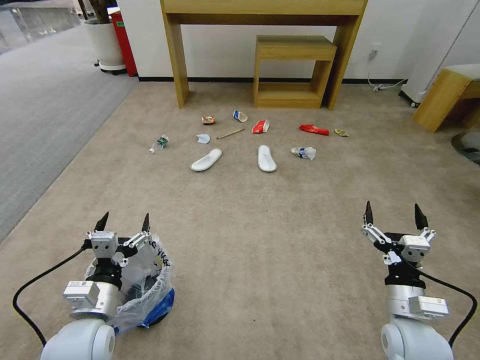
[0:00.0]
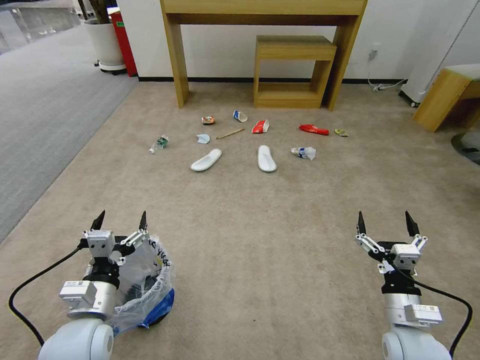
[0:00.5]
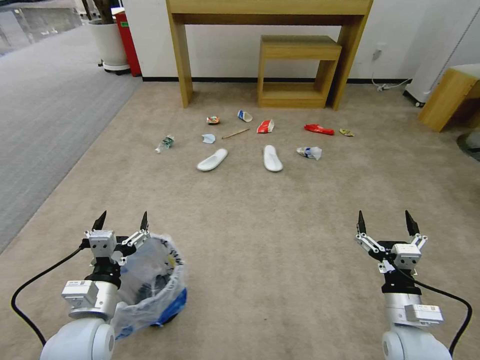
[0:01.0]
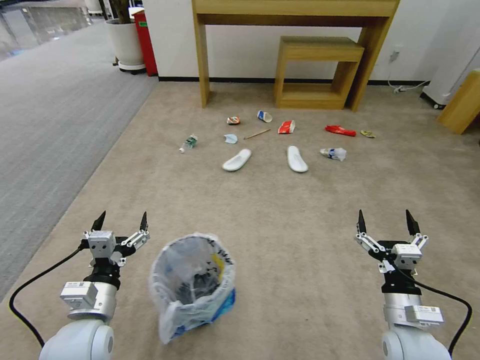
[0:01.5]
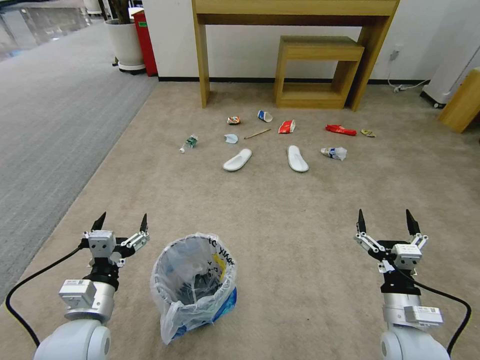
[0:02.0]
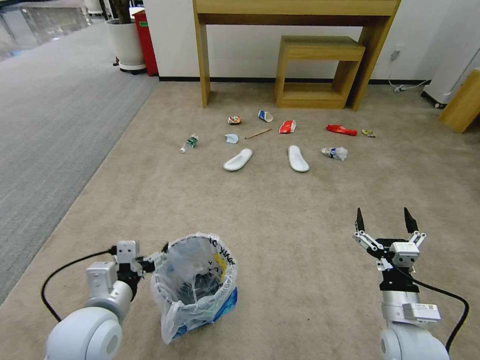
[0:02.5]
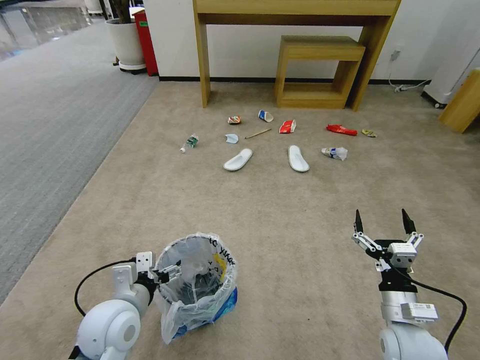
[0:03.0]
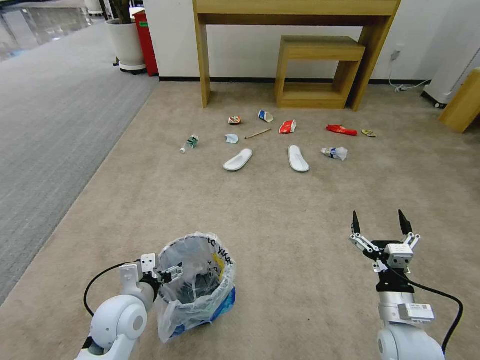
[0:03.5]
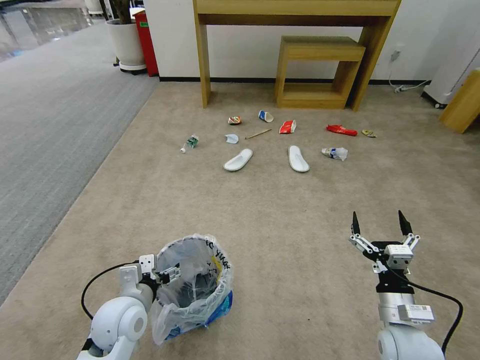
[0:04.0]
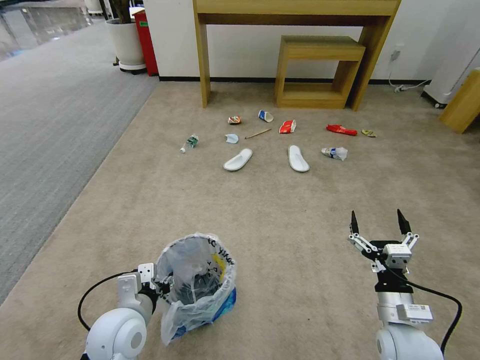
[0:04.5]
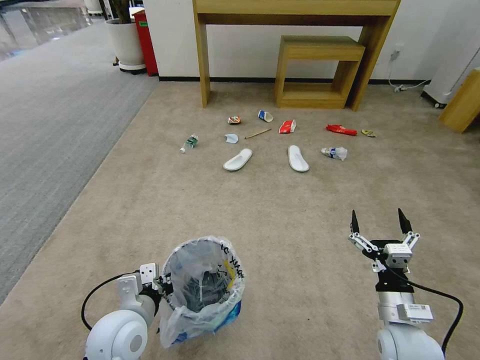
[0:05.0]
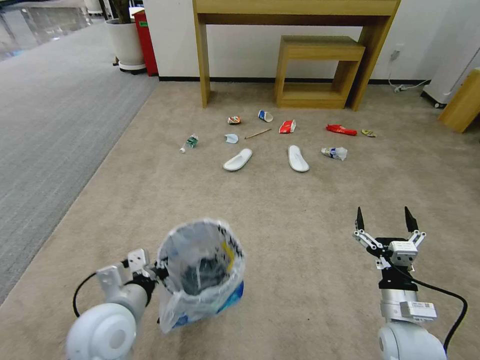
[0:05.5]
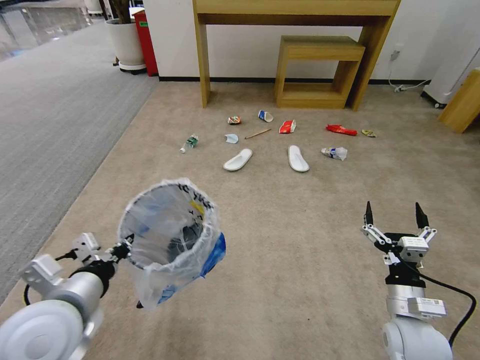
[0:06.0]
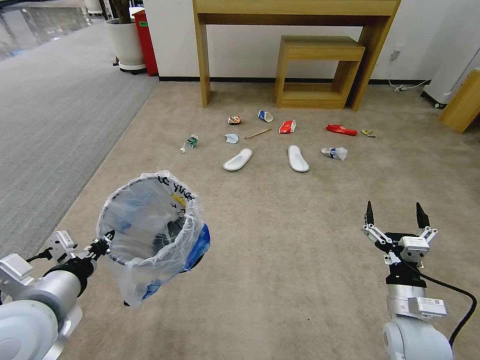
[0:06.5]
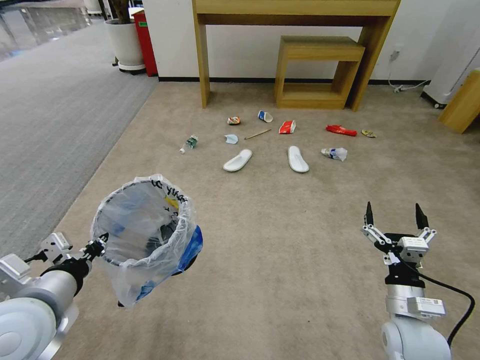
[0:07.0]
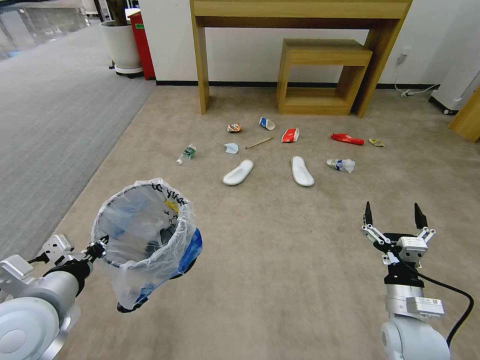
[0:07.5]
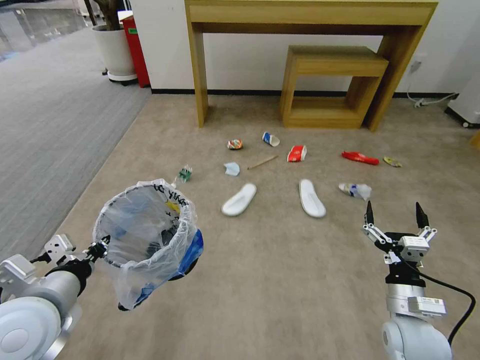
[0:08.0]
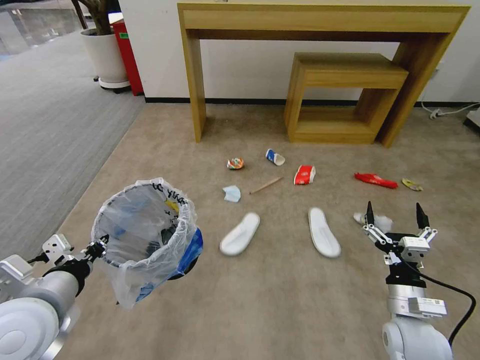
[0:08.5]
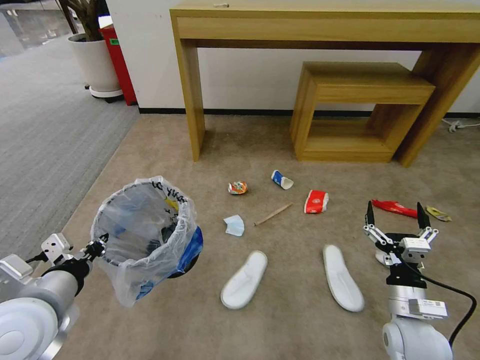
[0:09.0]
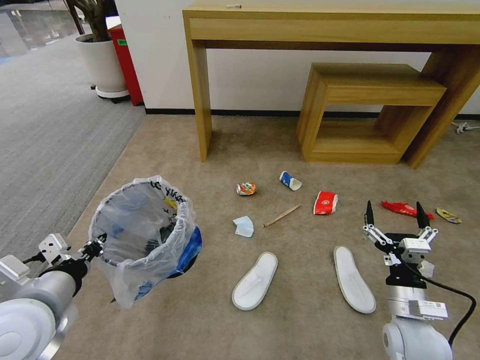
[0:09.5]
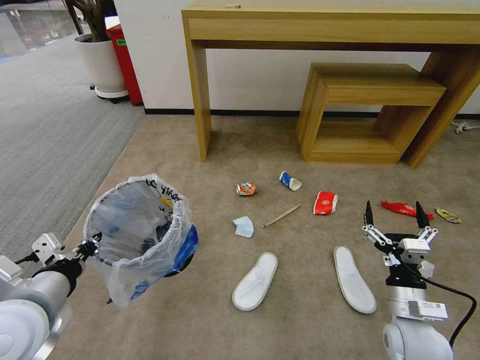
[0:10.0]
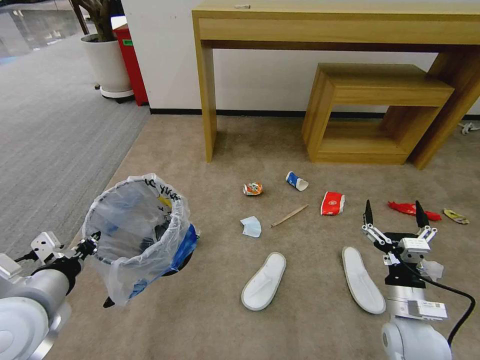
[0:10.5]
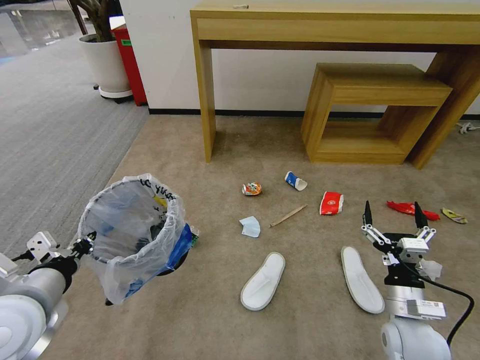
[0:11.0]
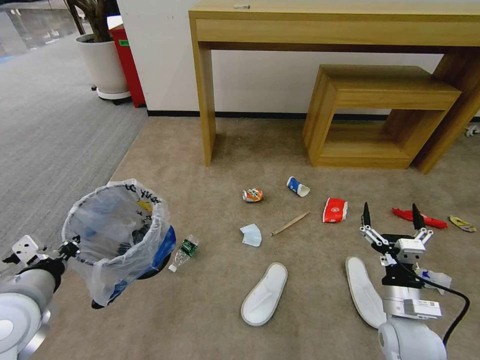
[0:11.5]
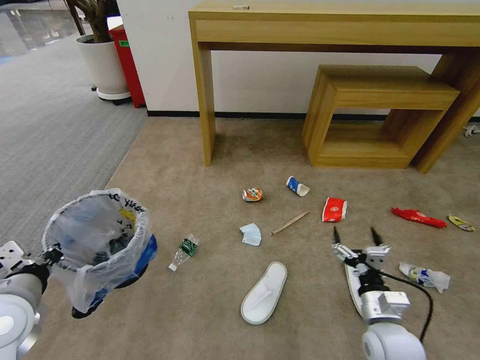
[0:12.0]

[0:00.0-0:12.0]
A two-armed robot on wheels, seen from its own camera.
Task of the whole recording: Pick up the trash bin and place the garbage on the floor into it.
2.0 to 4.0 s: The left gripper moves forward, roughly 5 cm.
4.0 to 6.0 s: The left gripper shifts some 15 cm upward, and closes its fingers.
10.0 to 12.0 s: The left gripper ends up roughly 5 cm from where it was.

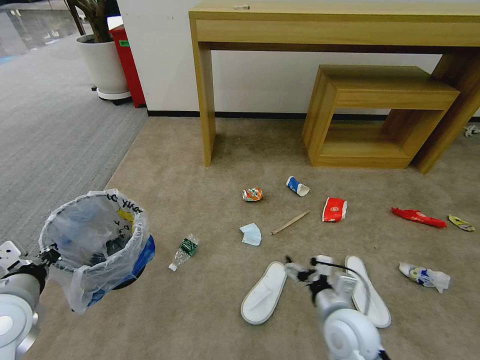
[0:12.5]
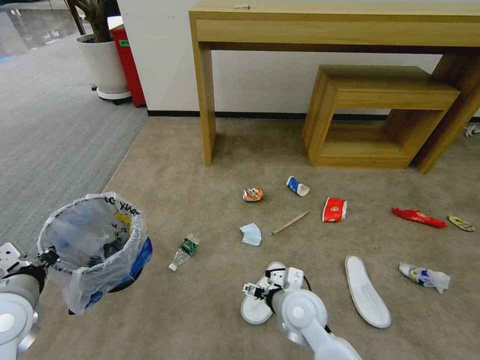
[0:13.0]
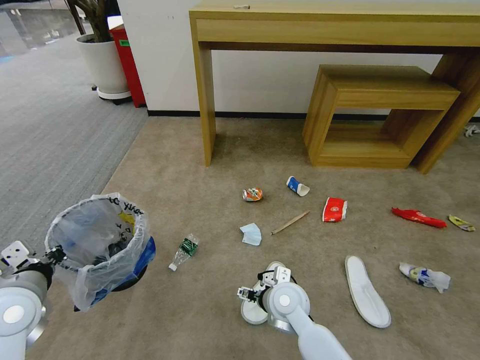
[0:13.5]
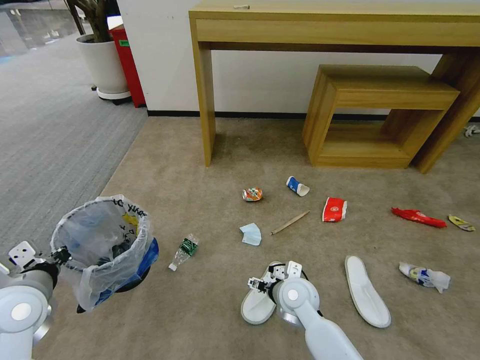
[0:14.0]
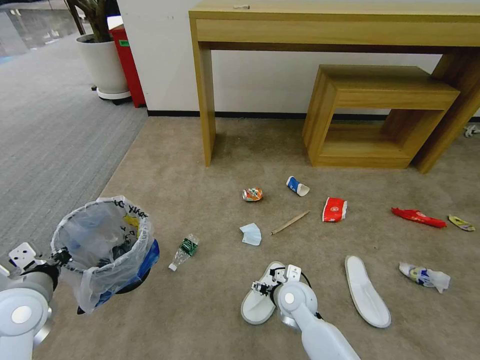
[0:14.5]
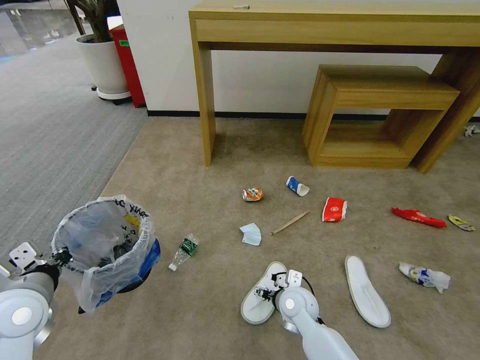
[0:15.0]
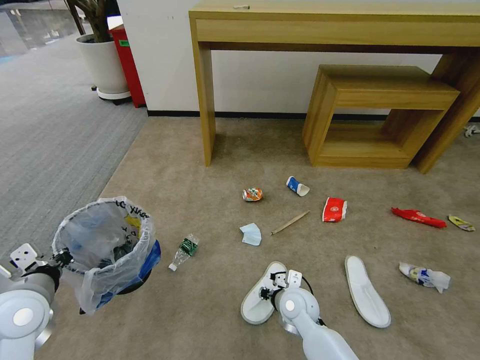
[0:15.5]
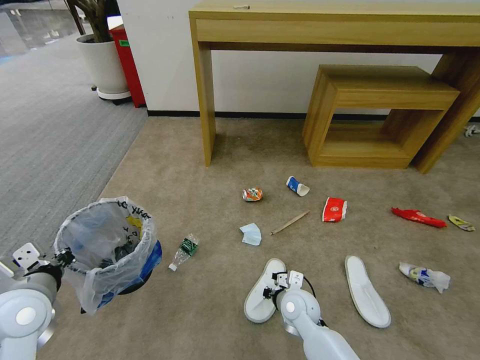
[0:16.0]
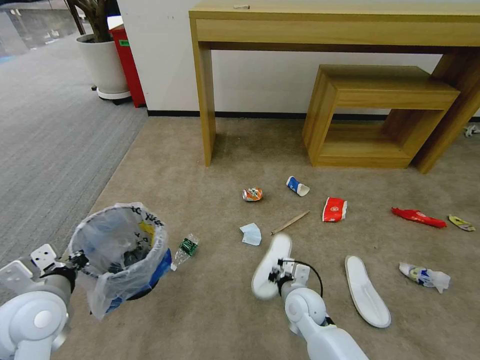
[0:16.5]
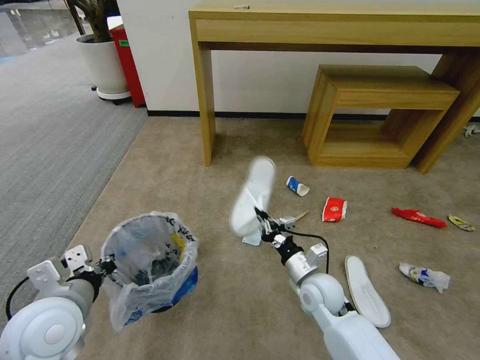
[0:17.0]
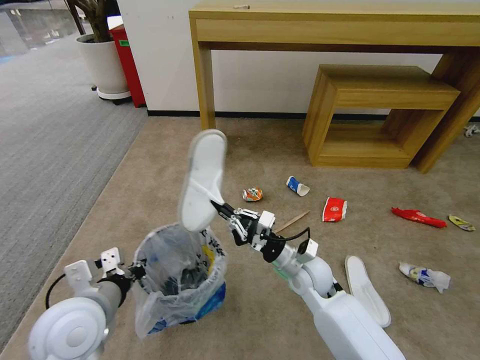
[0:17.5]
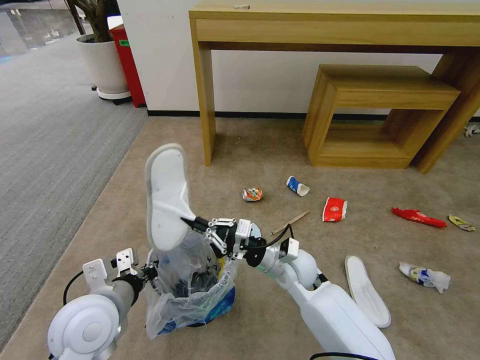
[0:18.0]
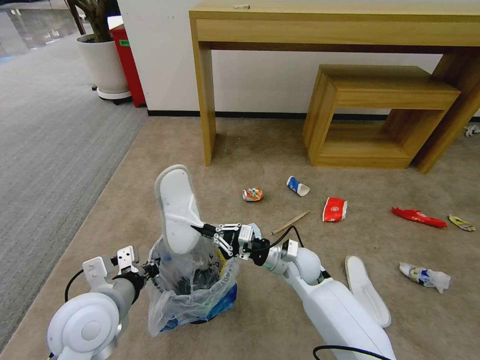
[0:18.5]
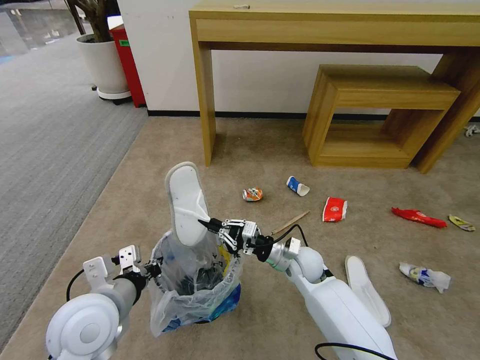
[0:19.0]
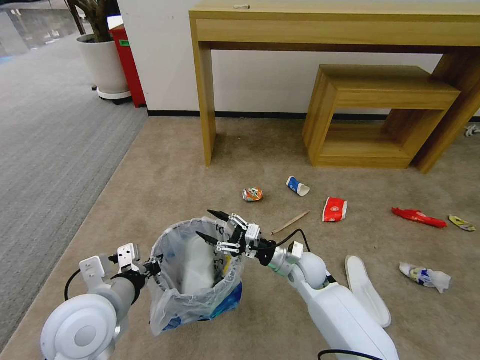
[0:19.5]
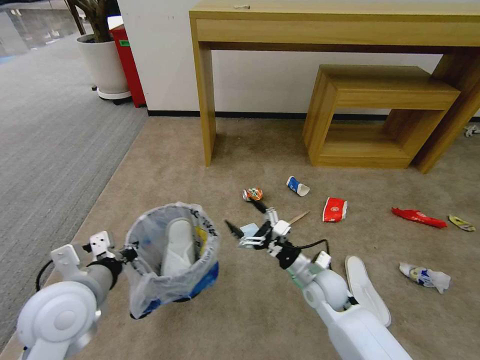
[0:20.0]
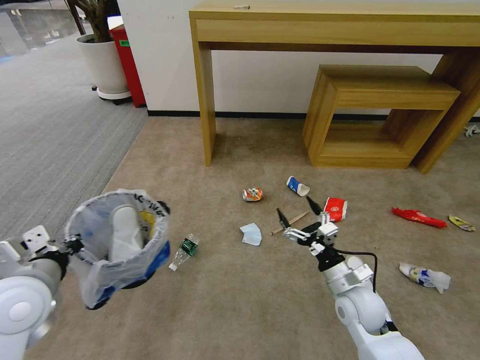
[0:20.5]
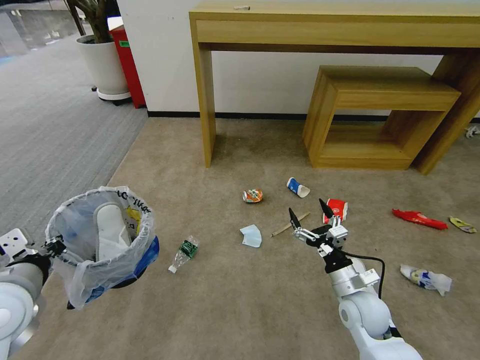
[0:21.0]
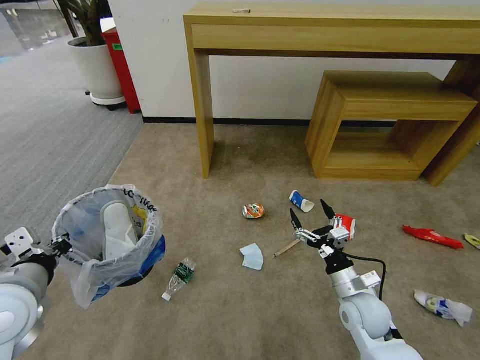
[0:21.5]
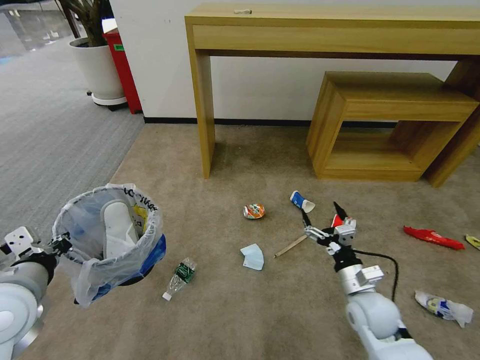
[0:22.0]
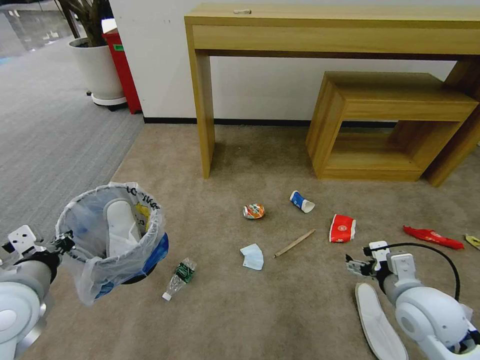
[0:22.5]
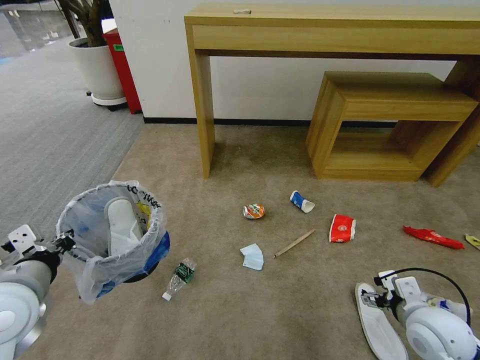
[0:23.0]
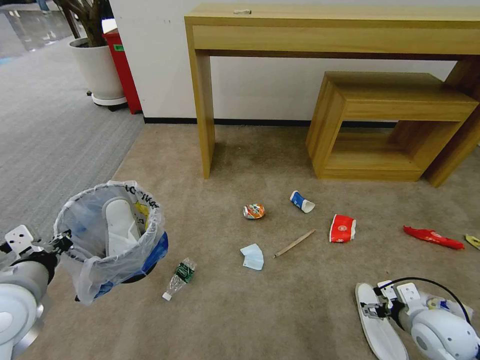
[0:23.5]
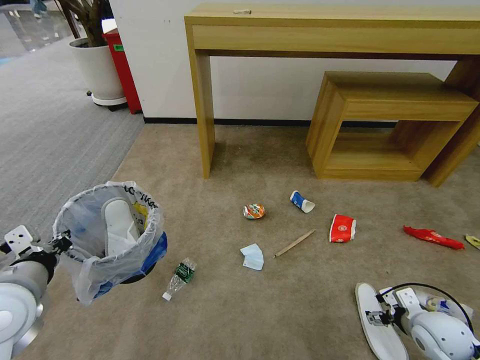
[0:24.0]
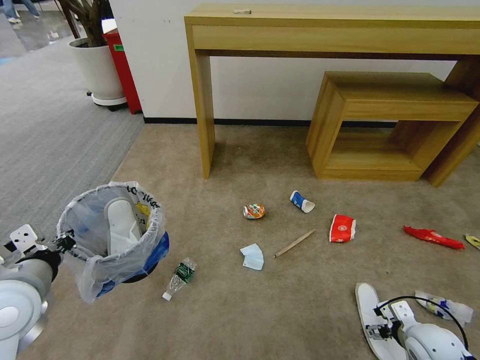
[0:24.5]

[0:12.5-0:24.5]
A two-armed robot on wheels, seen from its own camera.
Task of the whole recording: Pick up the trash bin and place the garbage on the floor into it.
12.5 to 14.5 s: The right gripper shifts about 15 cm forward, to the left and downward.
14.5 to 16.5 s: The right gripper closes its fingers.
16.5 to 18.5 s: The left gripper goes about 10 cm to the right; the right gripper is displaced forward and upward by roughly 10 cm.
18.5 to 20.5 s: The left gripper travels to the left by approximately 10 cm; the right gripper travels to the right and backward by approximately 15 cm, and opens.
20.5 to 22.5 s: The right gripper shifts approximately 15 cm upward and to the right.
22.5 to 24.5 s: The right gripper moves downward and to the right, about 20 cm.

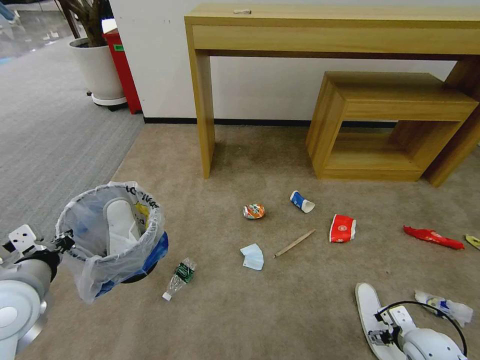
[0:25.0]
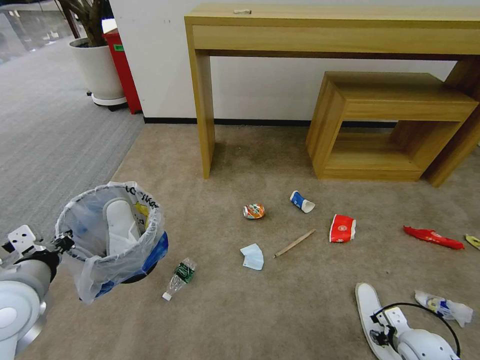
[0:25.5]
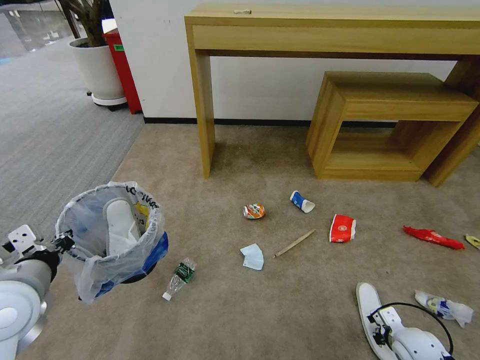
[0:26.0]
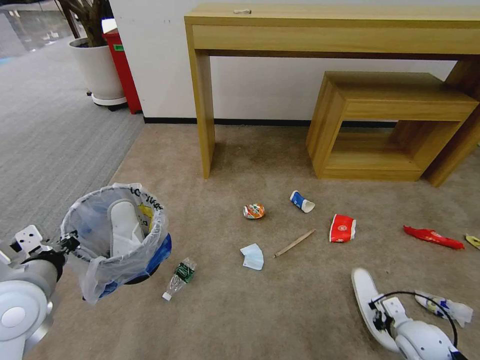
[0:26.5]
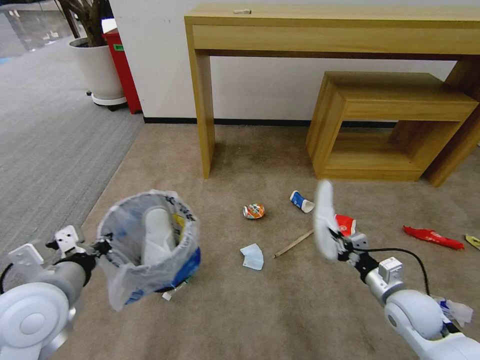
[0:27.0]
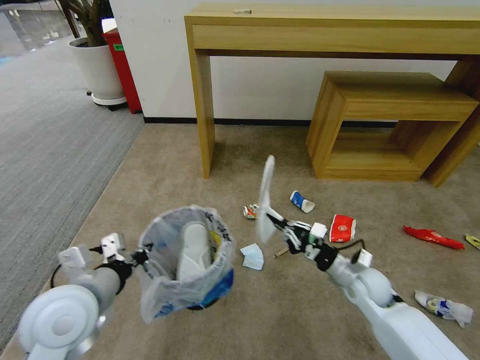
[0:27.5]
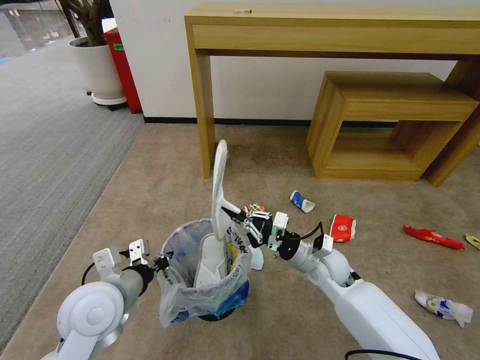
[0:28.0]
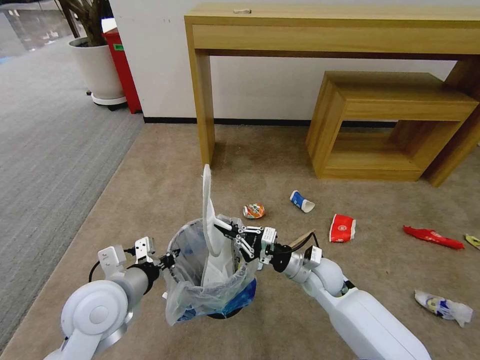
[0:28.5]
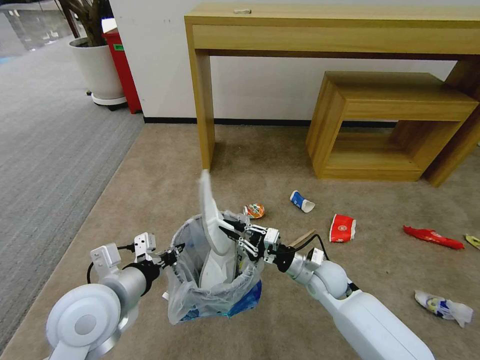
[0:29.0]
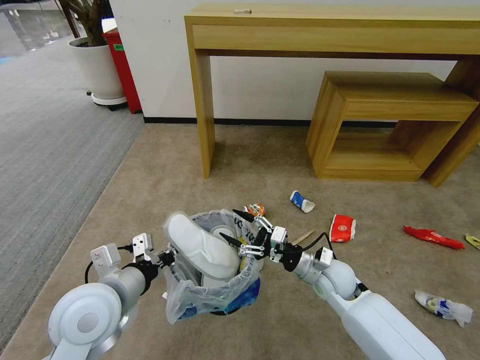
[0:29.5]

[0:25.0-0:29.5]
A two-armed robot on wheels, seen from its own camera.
Task of the whole recording: Pick up the trash bin and place the garbage on the floor into it.
25.0 to 27.0 s: The right gripper moves upward, forward and to the left, approximately 10 cm, and closes.
27.0 to 29.5 s: The right gripper shifts some 15 cm to the left and forward, and opens its fingers, while the left gripper travels to the right by some 5 cm.
